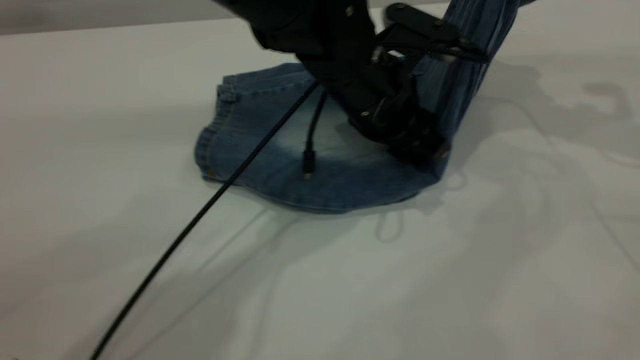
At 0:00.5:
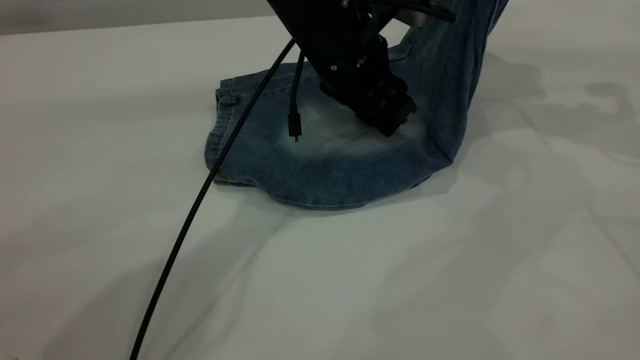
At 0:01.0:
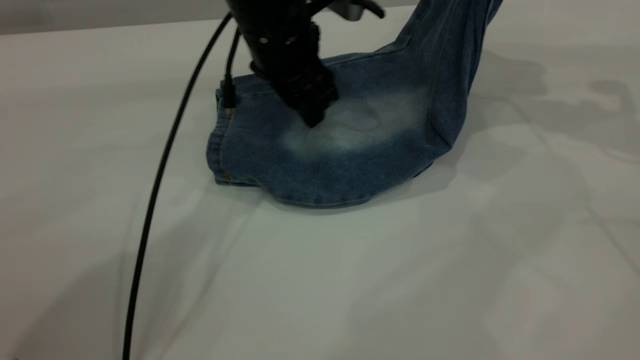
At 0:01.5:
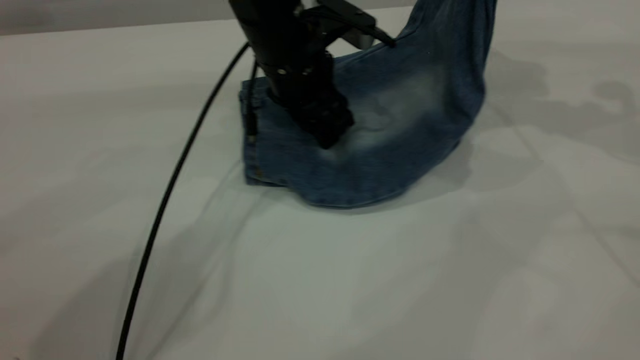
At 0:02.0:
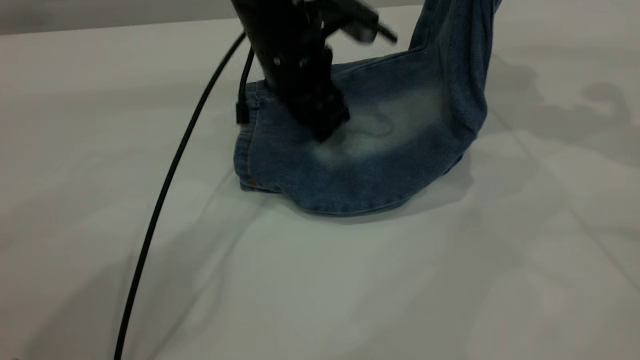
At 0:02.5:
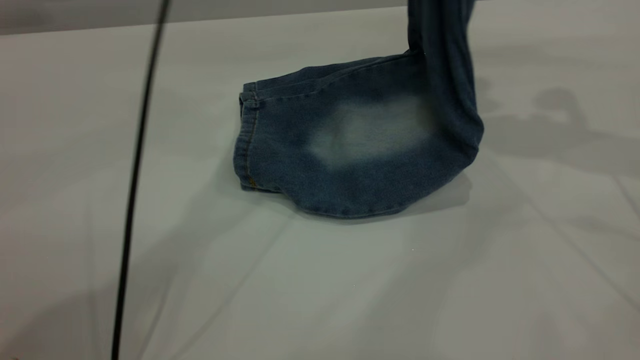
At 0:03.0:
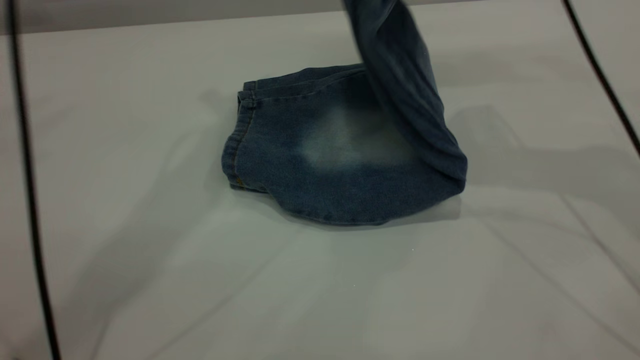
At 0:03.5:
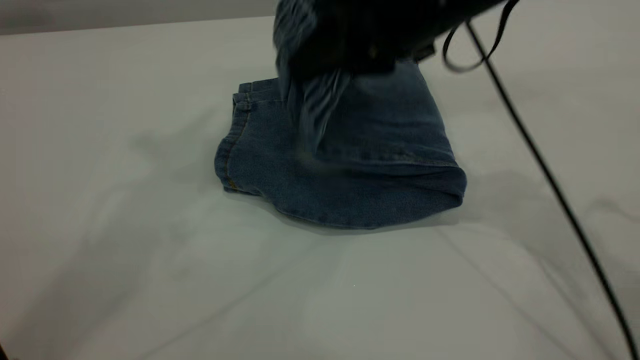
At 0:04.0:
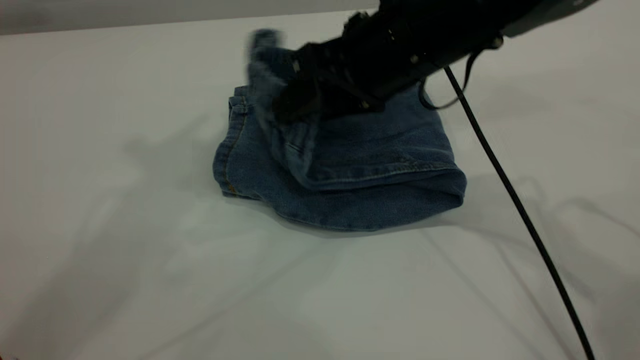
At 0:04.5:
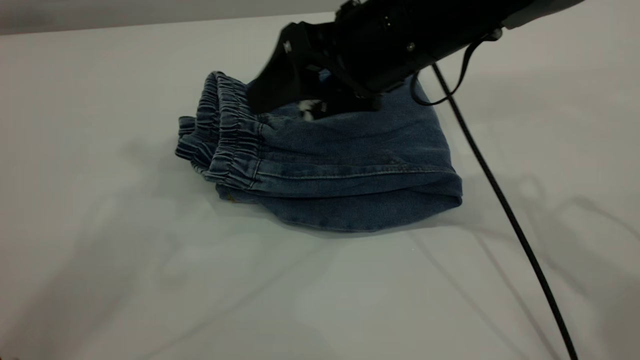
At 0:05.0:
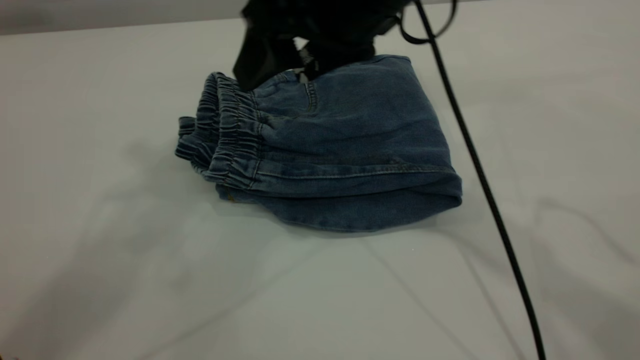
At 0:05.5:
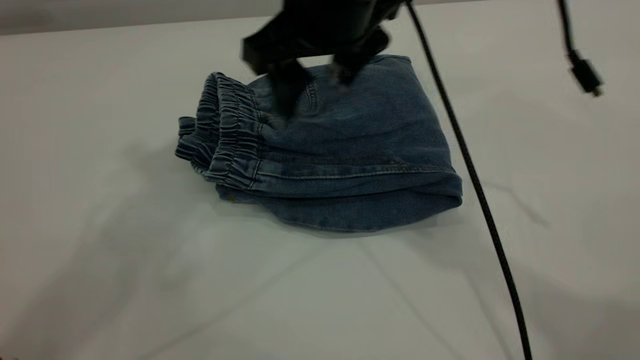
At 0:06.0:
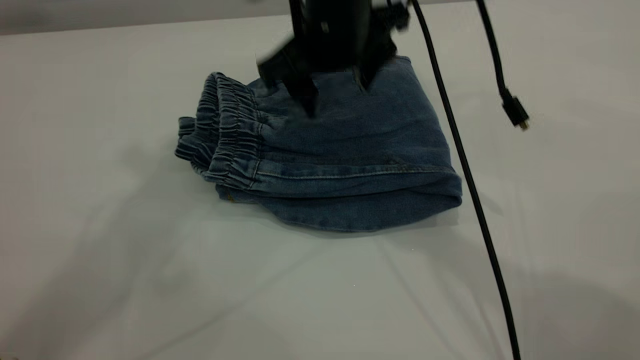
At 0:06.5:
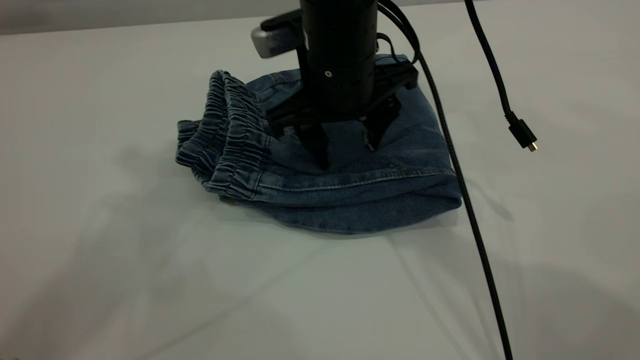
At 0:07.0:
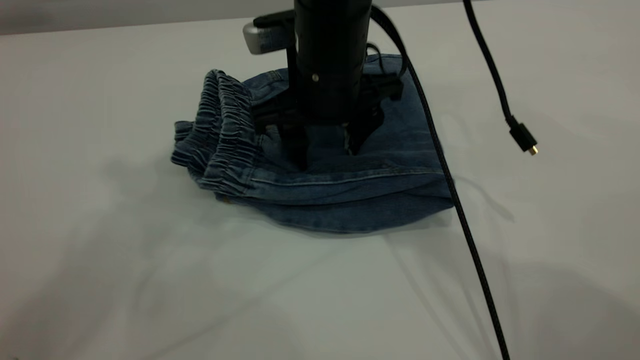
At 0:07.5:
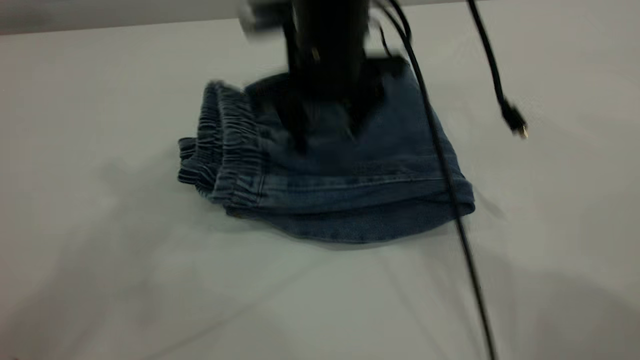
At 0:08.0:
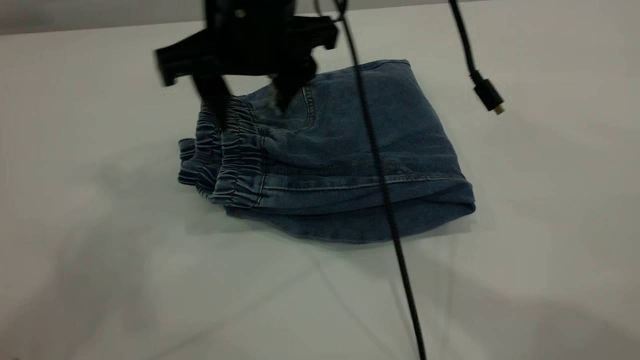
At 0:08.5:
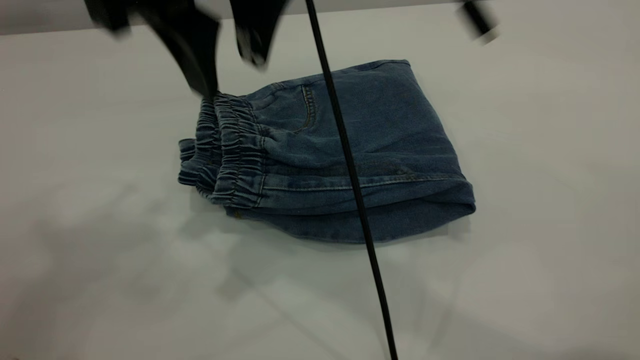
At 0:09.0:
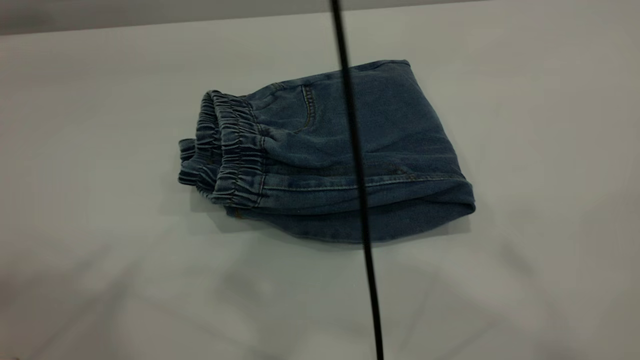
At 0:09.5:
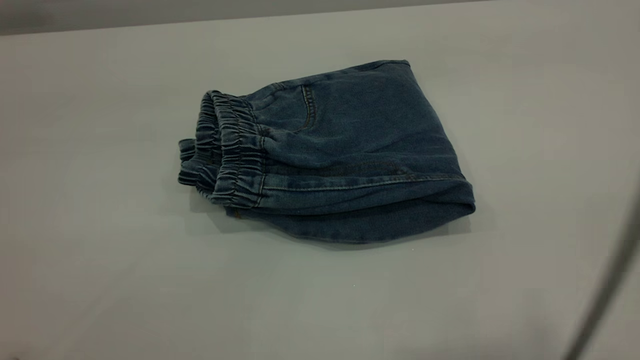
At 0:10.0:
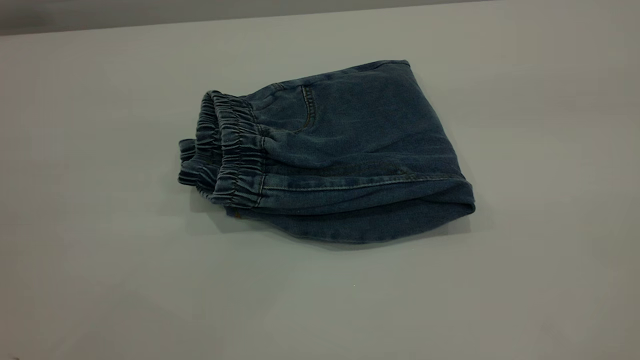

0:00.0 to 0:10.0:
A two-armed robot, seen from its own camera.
Step, 0:00.0 to 0:04.5: Fold your pants from right to left.
0:00.0 to 0:02.0: The left gripper heads to the left, covering roughly 5 cm.
0:02.0 to 0:04.0: The left gripper travels upward by about 40 cm. Meanwhile the right gripper moves to the left and downward, approximately 25 cm, and opens its fingers.
0:04.0 to 0:06.0: The right gripper goes roughly 5 cm to the left.
0:06.0 to 0:08.0: The right gripper travels to the left by some 5 cm.
0:08.0 to 0:10.0: The right gripper is displaced upward, backward and to the right by some 50 cm. Meanwhile the left gripper is displaced backward and to the left by roughly 30 cm.

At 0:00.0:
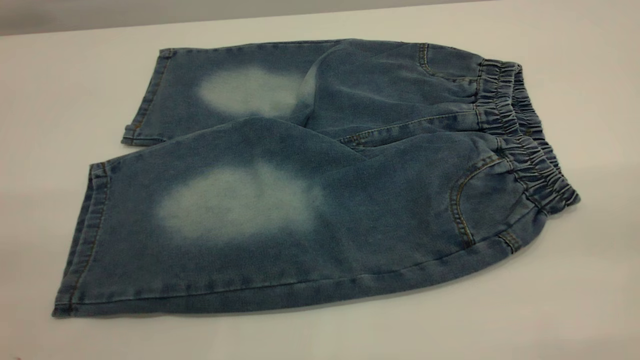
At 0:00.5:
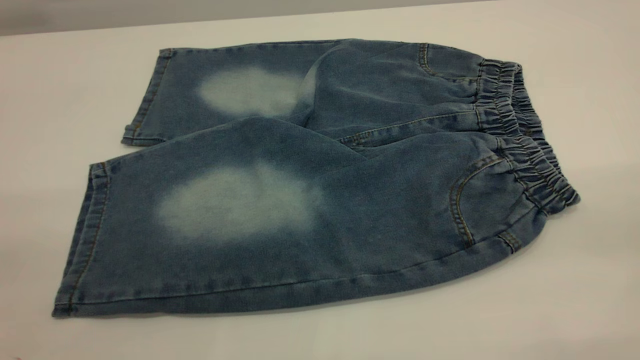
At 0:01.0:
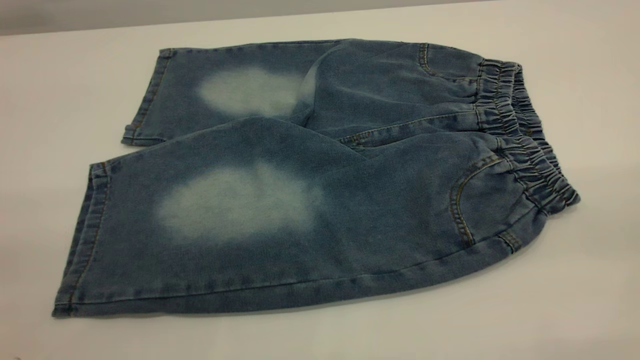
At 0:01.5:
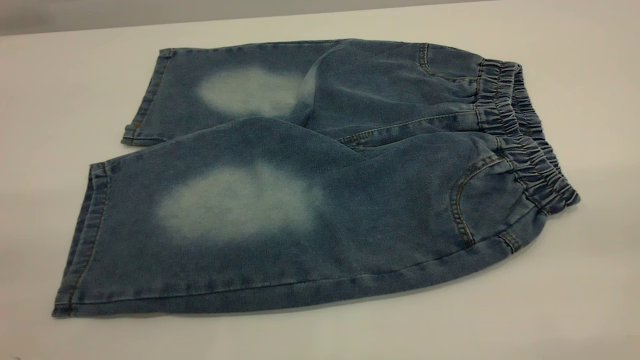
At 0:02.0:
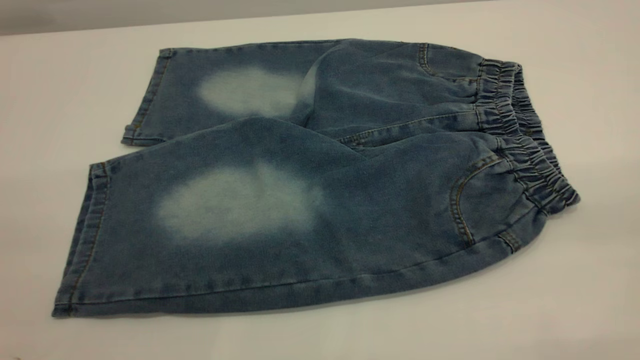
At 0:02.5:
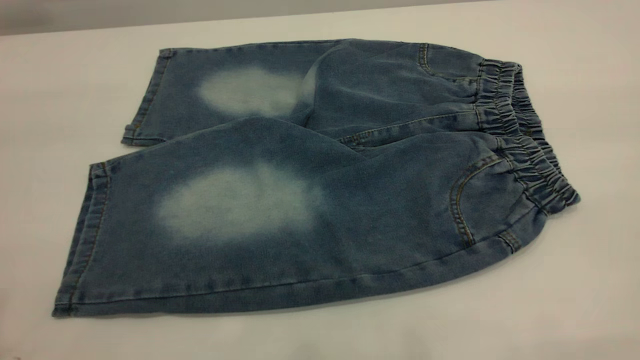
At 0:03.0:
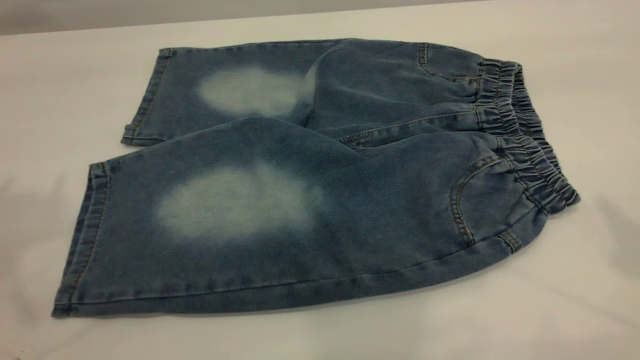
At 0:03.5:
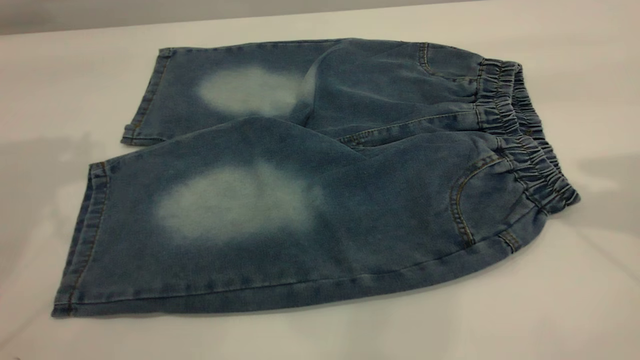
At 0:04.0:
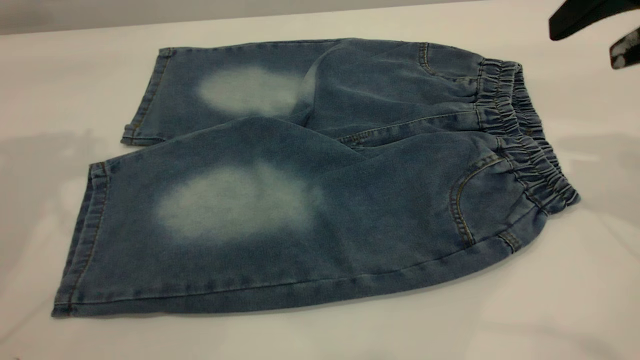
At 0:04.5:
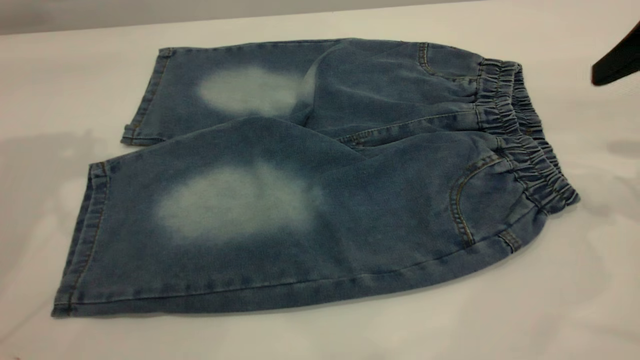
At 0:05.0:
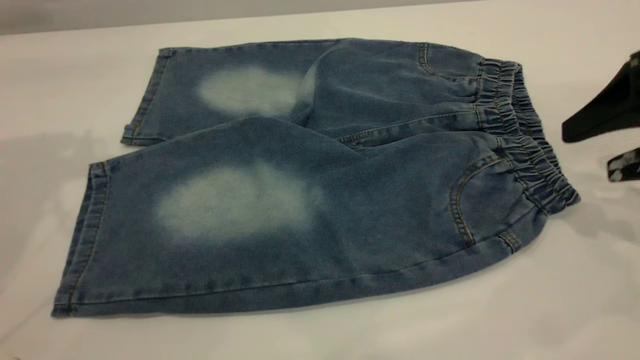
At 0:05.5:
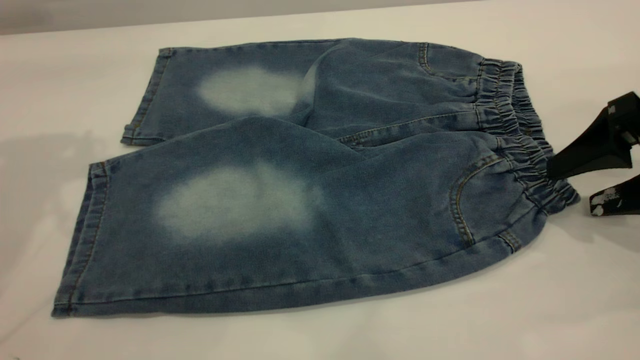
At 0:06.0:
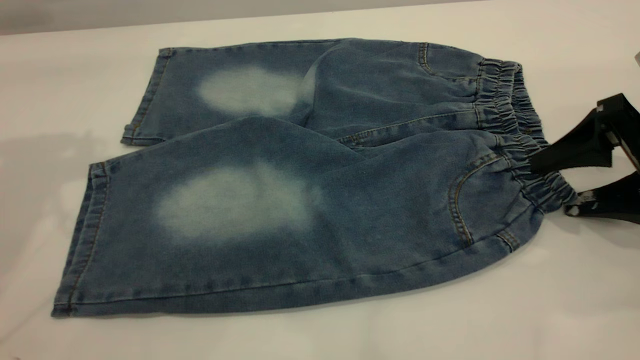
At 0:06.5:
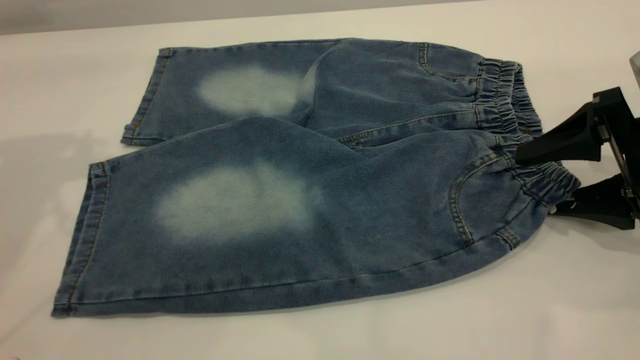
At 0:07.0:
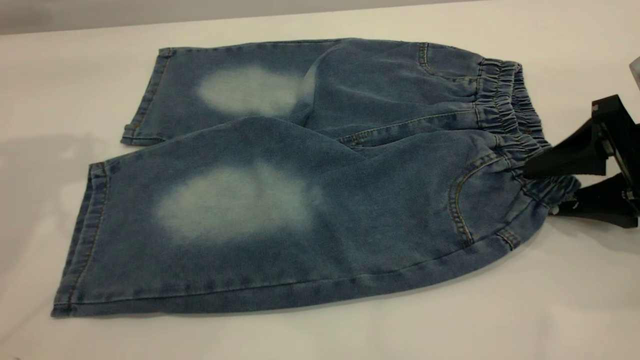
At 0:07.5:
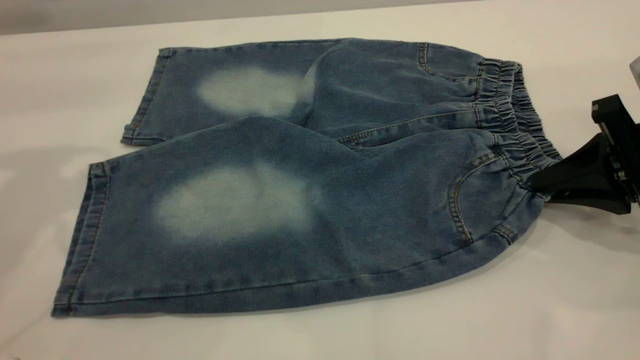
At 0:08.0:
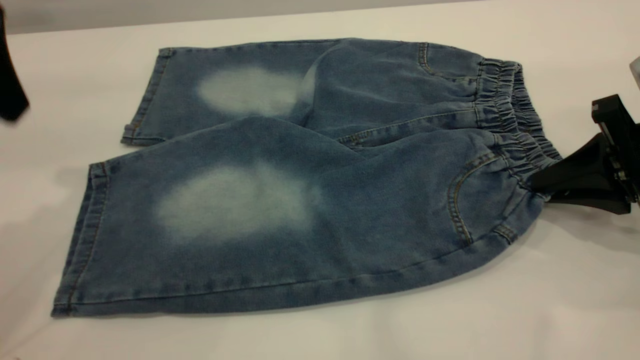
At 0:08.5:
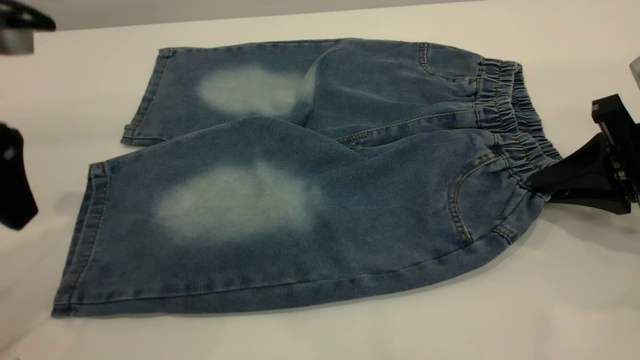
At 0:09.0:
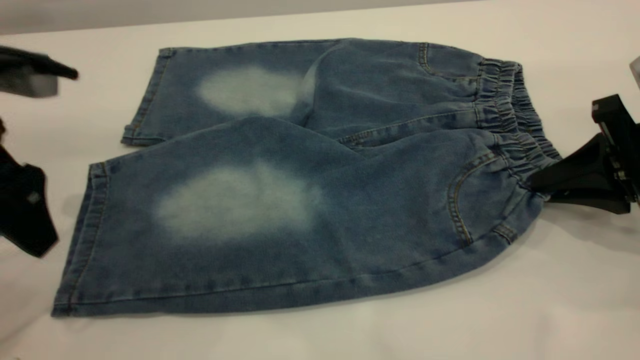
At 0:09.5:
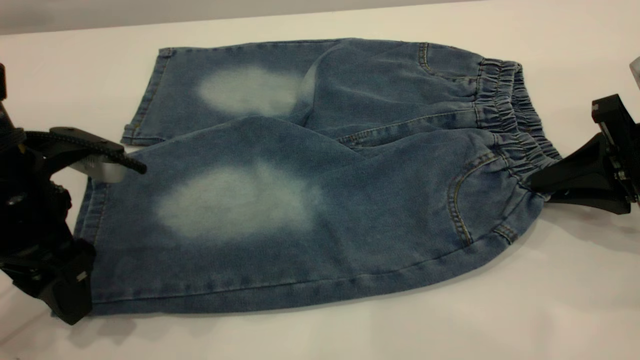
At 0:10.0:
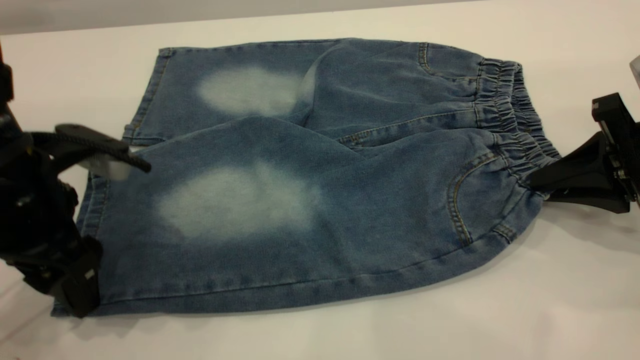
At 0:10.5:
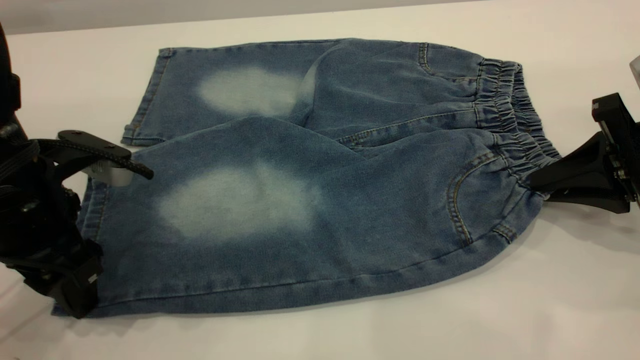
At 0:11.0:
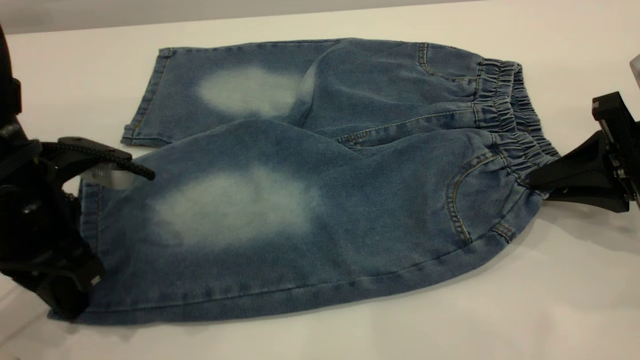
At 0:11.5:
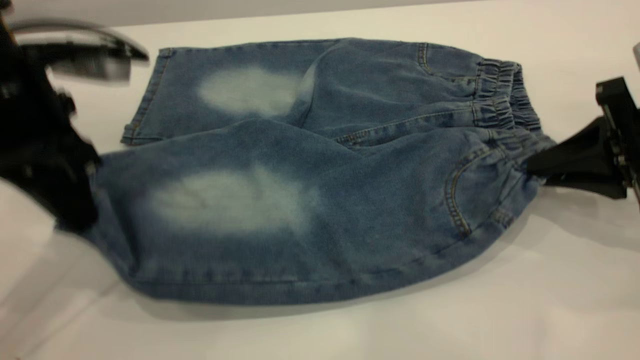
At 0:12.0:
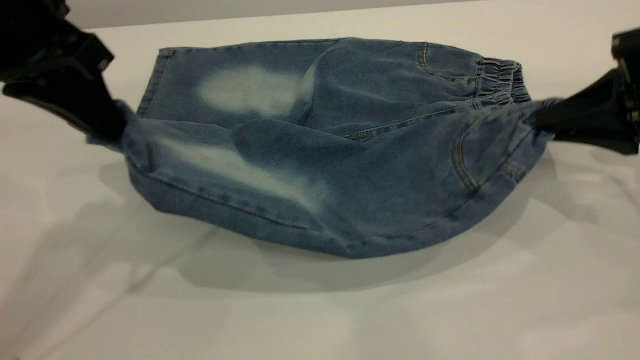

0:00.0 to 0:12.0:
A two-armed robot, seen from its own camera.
0:02.0 to 0:04.0: The right gripper heads forward and downward, covering approximately 30 cm.
0:04.0 to 0:06.0: The right gripper moves downward, approximately 15 cm.
0:06.0 to 0:08.0: The left gripper is displaced downward and backward by some 10 cm. Meanwhile the right gripper closes.
0:08.0 to 0:10.0: The left gripper is displaced downward by about 15 cm.
0:10.0 to 0:12.0: The left gripper goes approximately 15 cm upward, and closes its fingers, while the right gripper shifts by some 5 cm.
